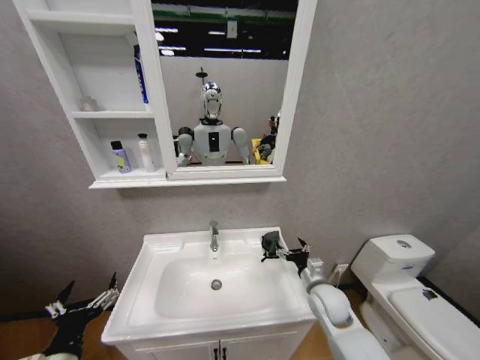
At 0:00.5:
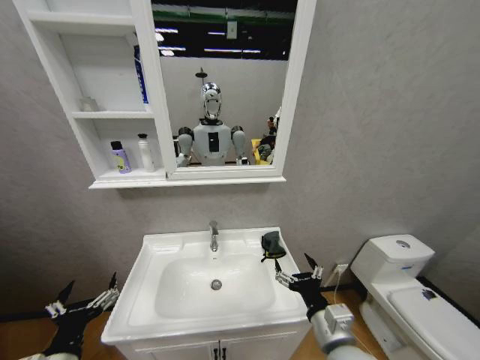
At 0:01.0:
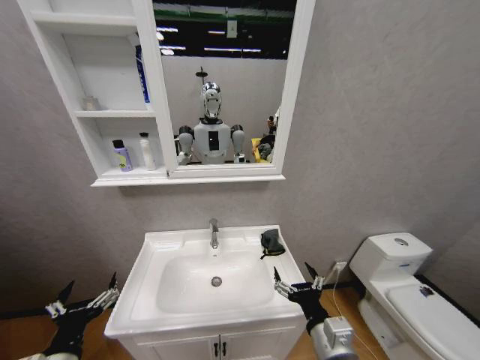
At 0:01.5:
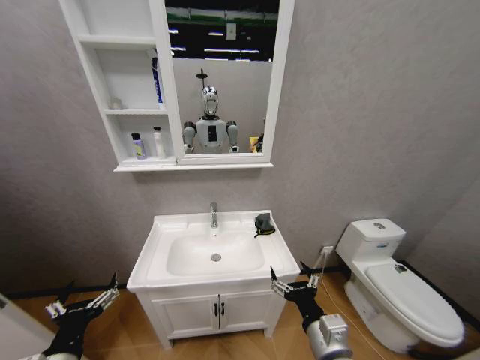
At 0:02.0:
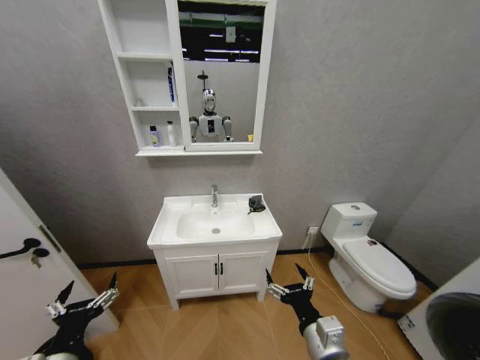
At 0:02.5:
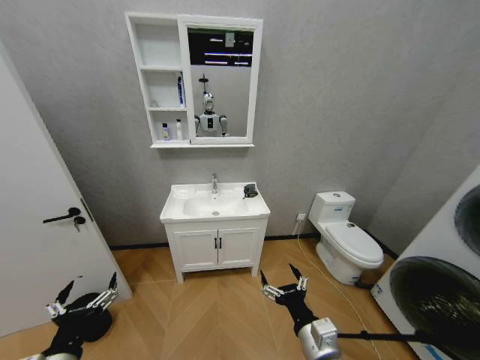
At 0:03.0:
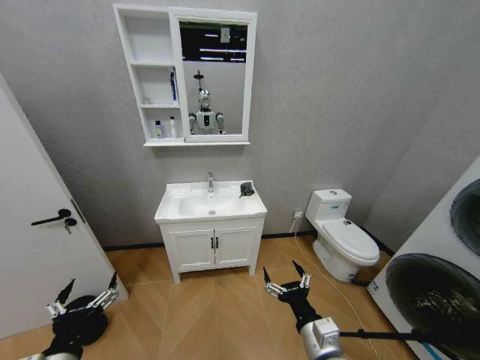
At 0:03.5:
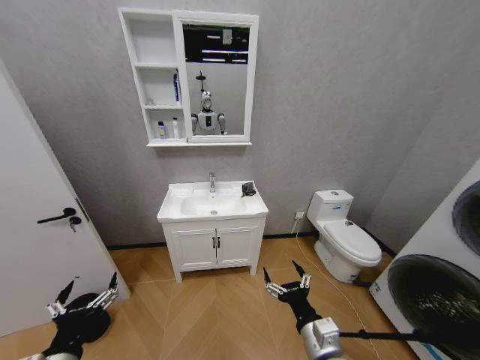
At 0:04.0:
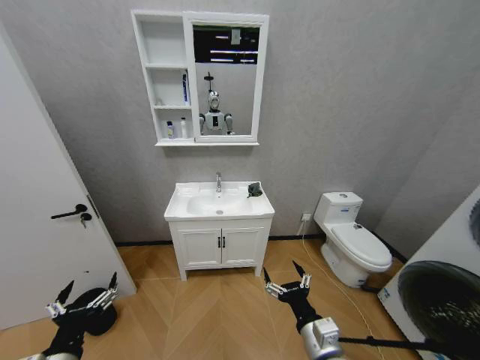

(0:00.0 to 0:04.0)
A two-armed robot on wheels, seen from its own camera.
Task of the whole recording: Move facial cleanser and shampoo from washbasin to cabinet, then wipe washbasin with towel.
0:00.0 - 0:02.0: The right gripper goes some 20 cm backward.

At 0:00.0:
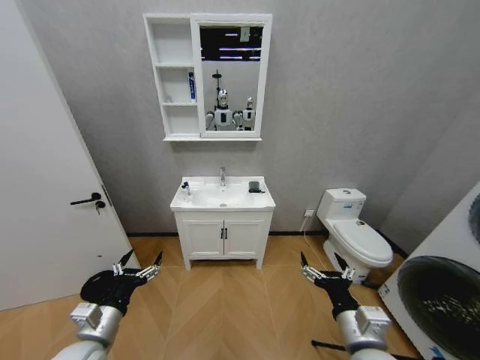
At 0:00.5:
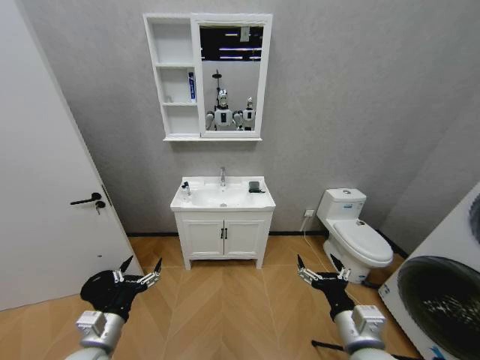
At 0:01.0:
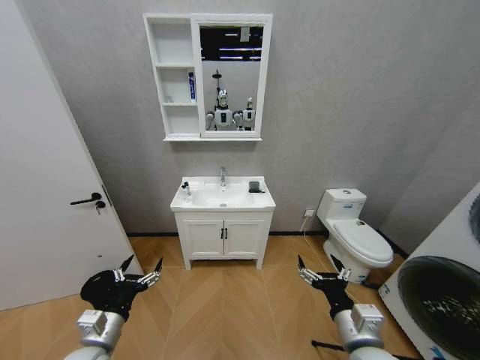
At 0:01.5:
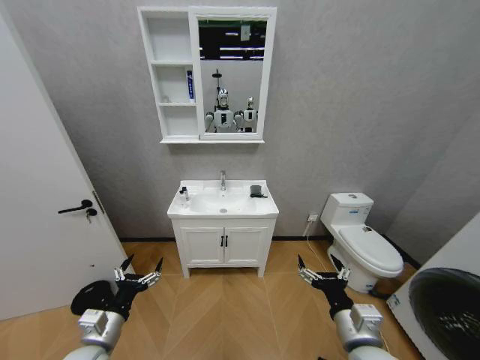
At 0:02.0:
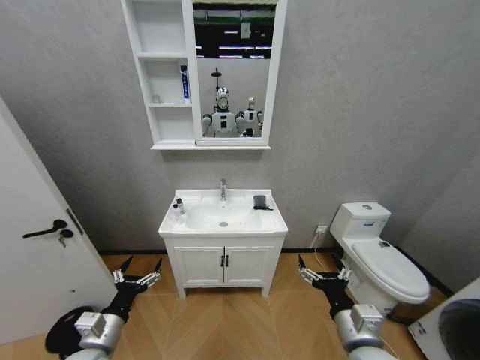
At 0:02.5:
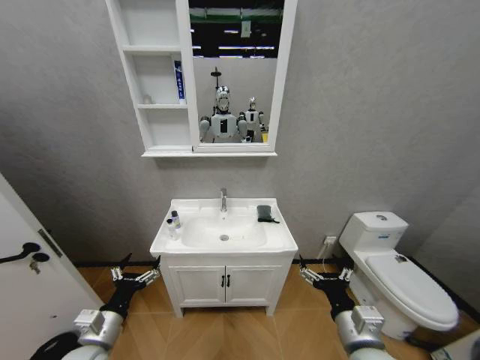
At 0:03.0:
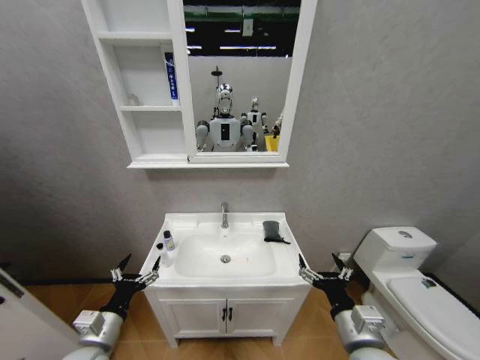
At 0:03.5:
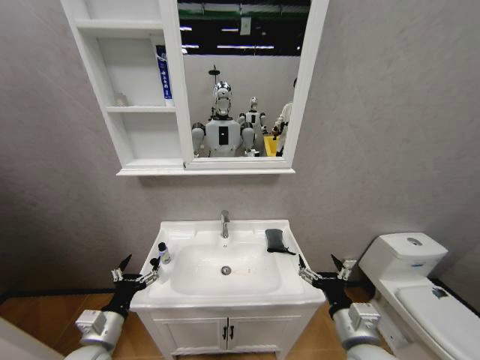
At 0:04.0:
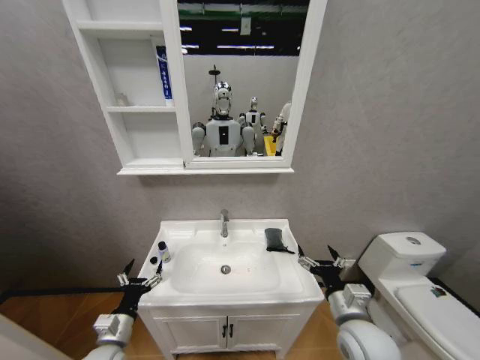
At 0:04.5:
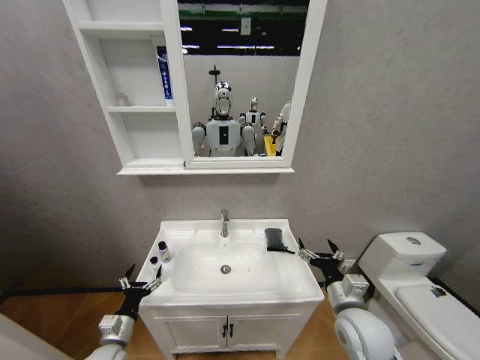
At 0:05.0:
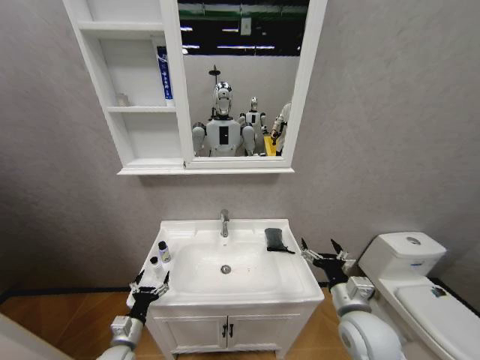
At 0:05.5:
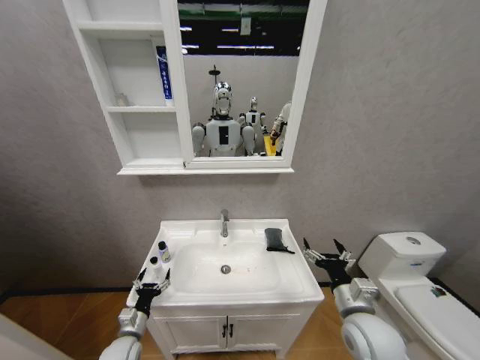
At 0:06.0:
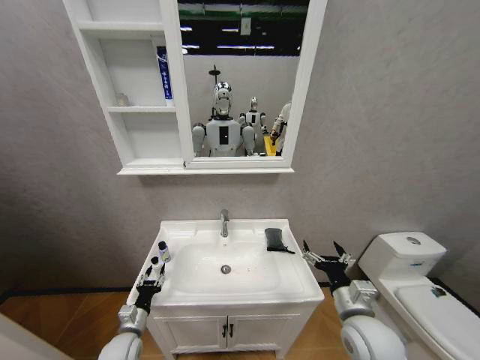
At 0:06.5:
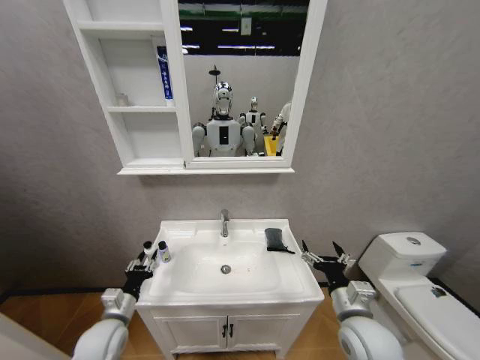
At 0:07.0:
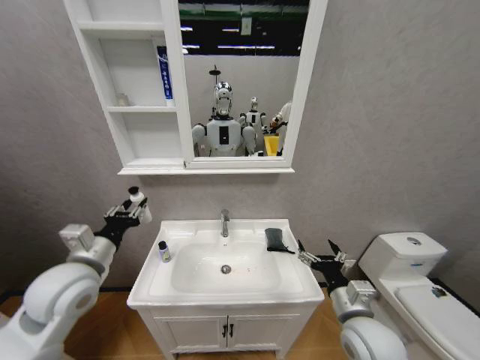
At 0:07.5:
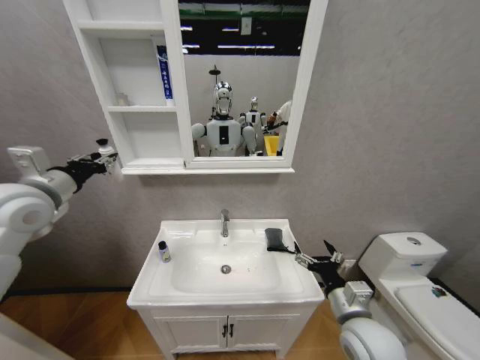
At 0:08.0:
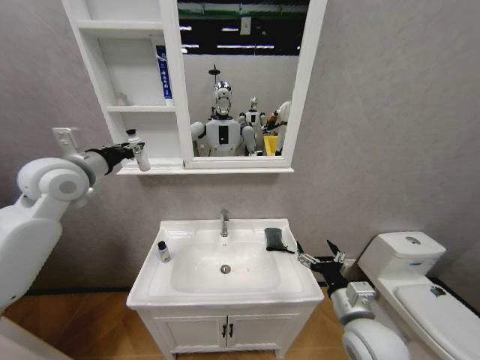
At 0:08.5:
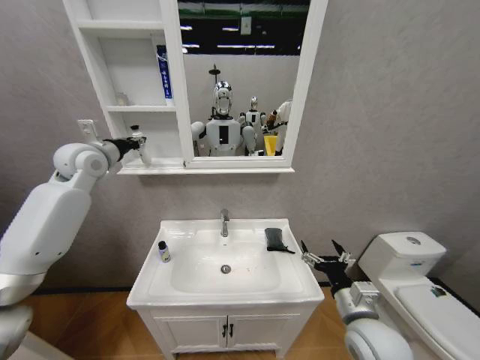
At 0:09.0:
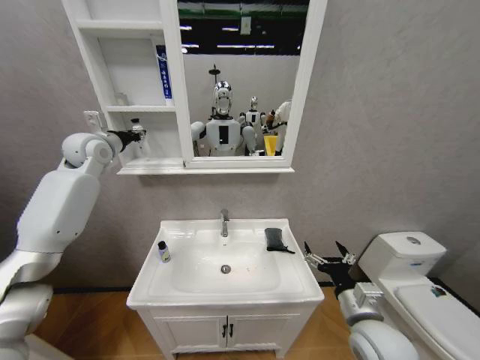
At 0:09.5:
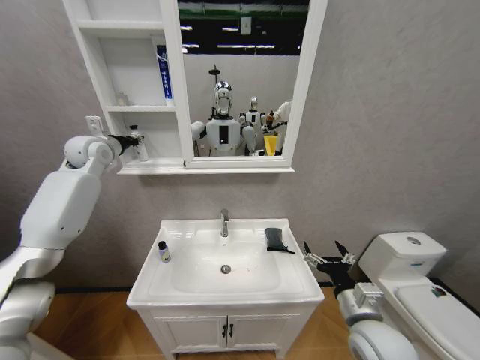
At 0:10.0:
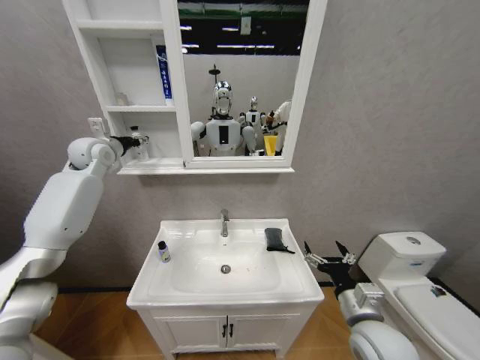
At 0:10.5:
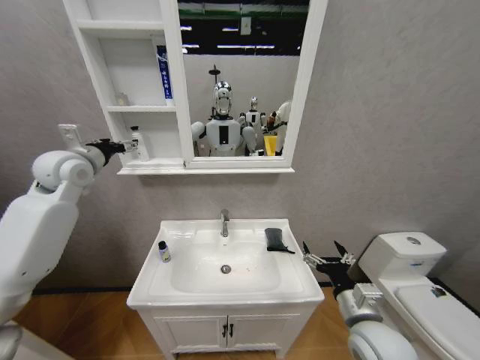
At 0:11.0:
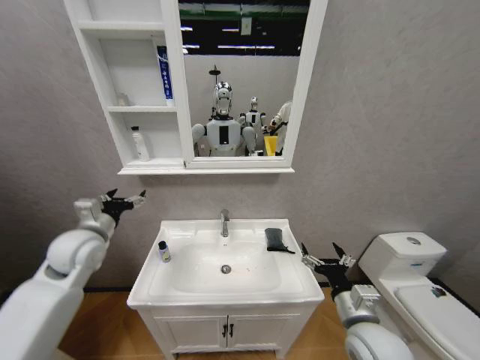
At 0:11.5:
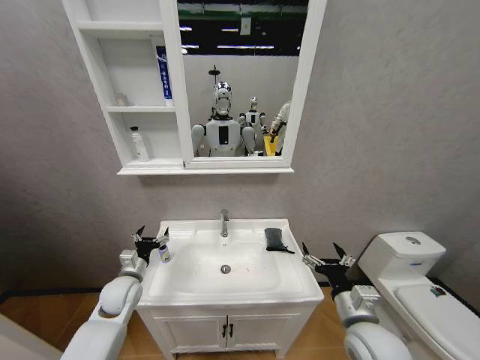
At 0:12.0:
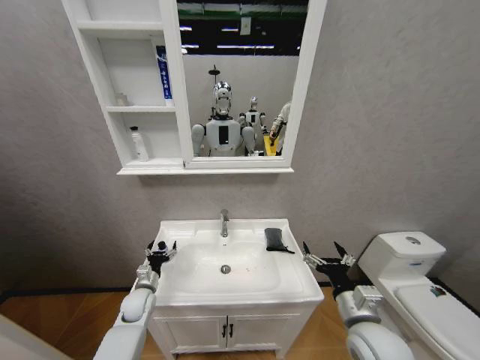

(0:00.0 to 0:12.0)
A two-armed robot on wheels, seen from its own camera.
Task of the whole recording: Move facial cleanser and shampoo from washbasin to cabinet, then wipe washbasin with towel.
0:02.0 - 0:04.0: The right gripper is displaced forward by roughly 5 cm, while the left gripper heads downward, covering approximately 5 cm.
0:04.0 - 0:06.0: The left gripper heads downward, covering approximately 5 cm, and closes up.
0:06.0 - 0:08.0: The left gripper heads upward, covering some 50 cm.
0:08.0 - 0:10.0: The left gripper moves forward, roughly 15 cm, and opens.
0:10.0 - 0:12.0: The left gripper shifts approximately 50 cm downward and backward, and opens up.

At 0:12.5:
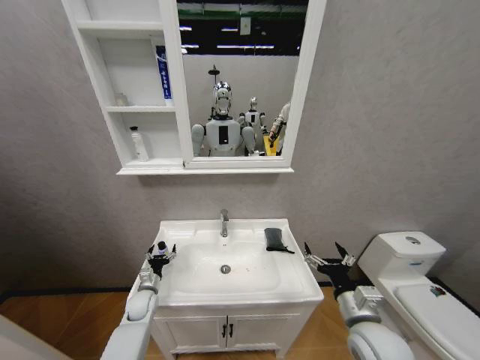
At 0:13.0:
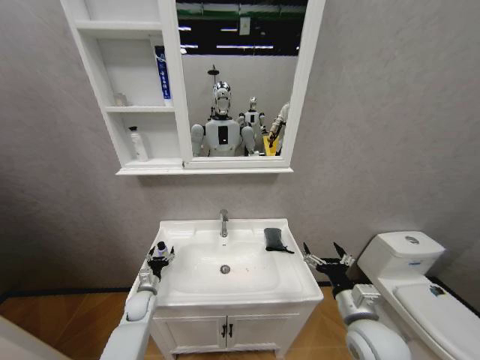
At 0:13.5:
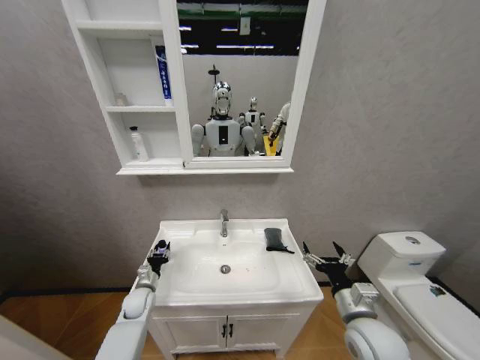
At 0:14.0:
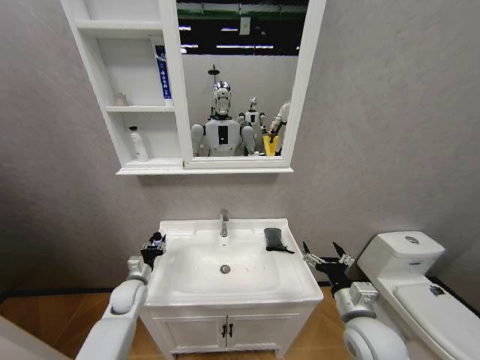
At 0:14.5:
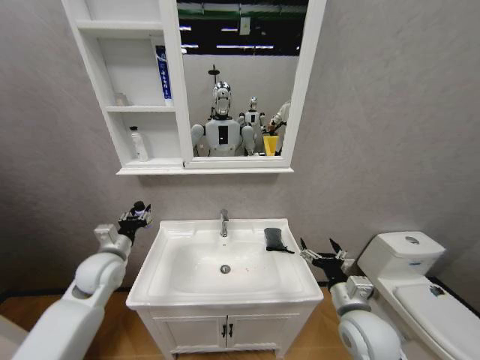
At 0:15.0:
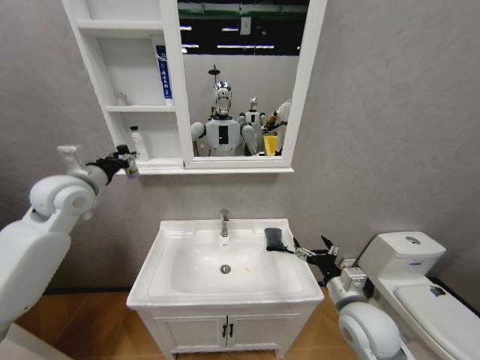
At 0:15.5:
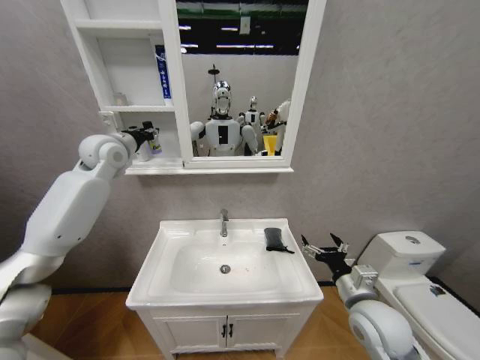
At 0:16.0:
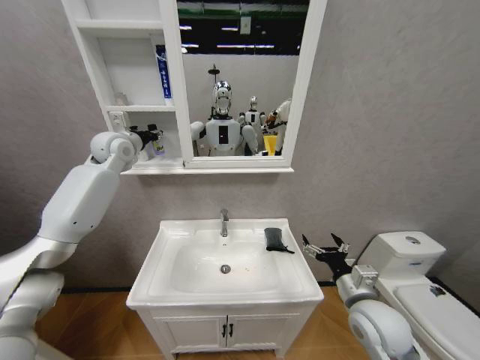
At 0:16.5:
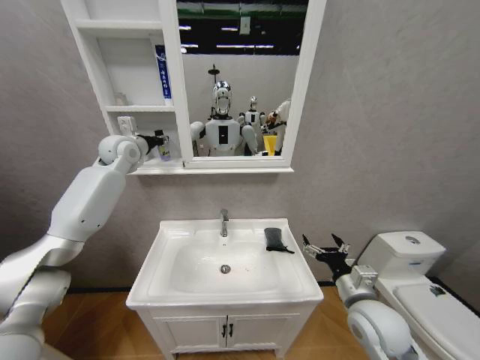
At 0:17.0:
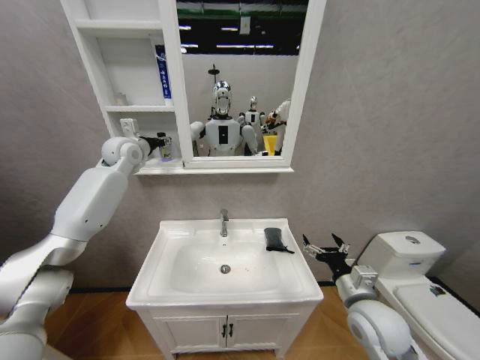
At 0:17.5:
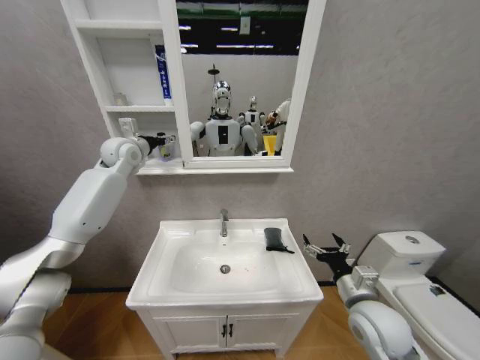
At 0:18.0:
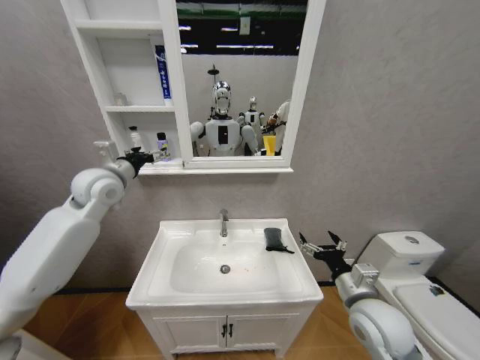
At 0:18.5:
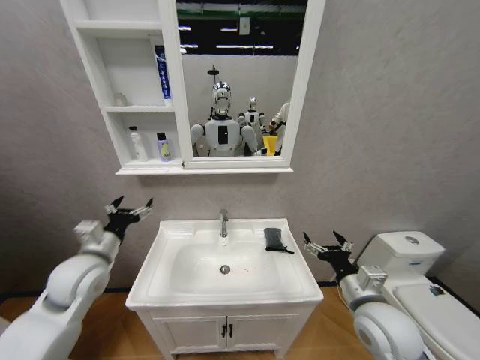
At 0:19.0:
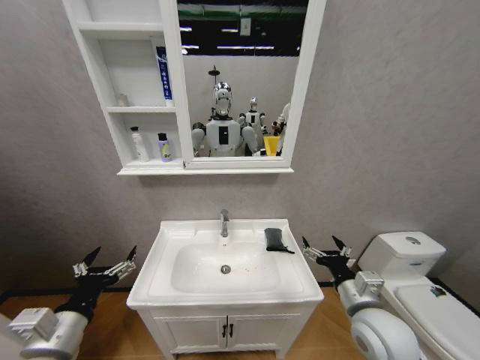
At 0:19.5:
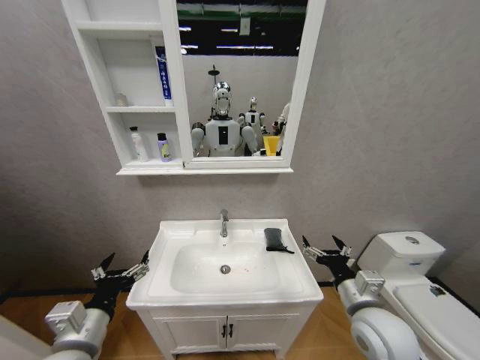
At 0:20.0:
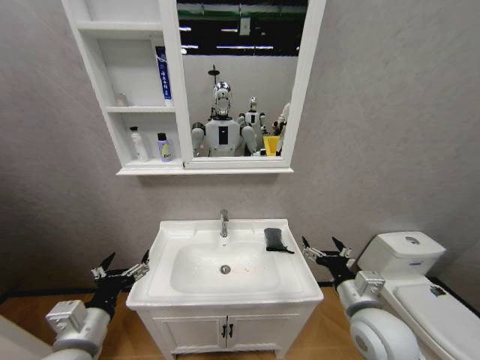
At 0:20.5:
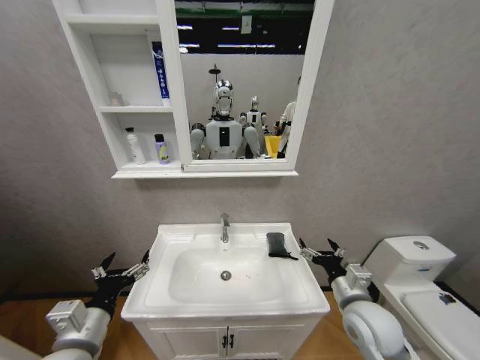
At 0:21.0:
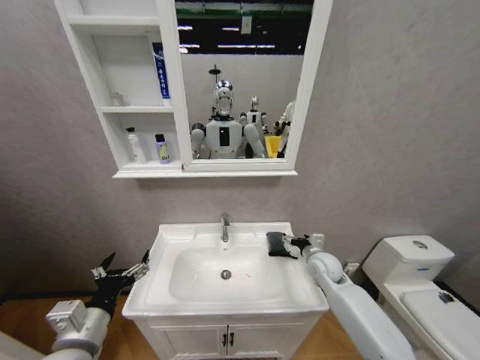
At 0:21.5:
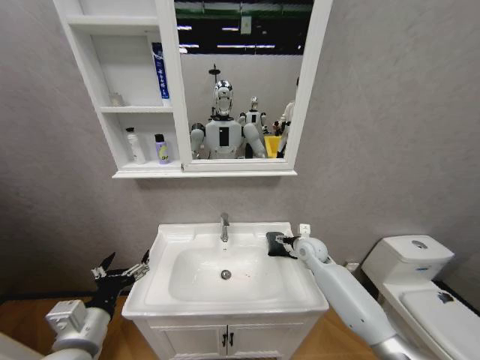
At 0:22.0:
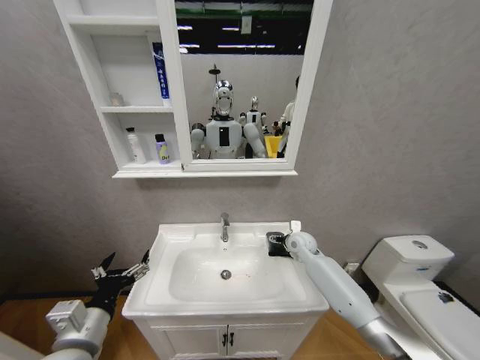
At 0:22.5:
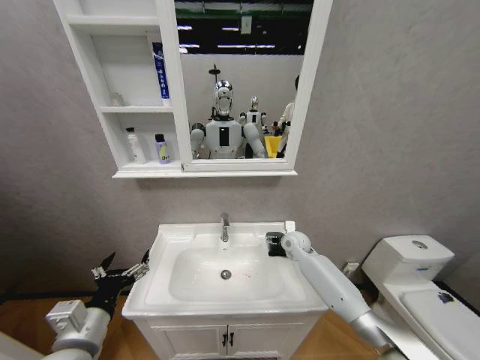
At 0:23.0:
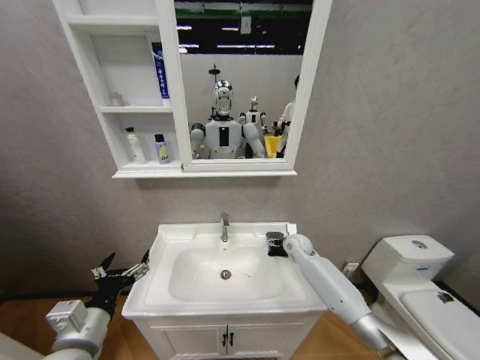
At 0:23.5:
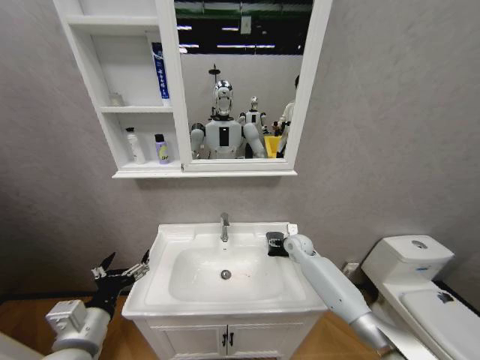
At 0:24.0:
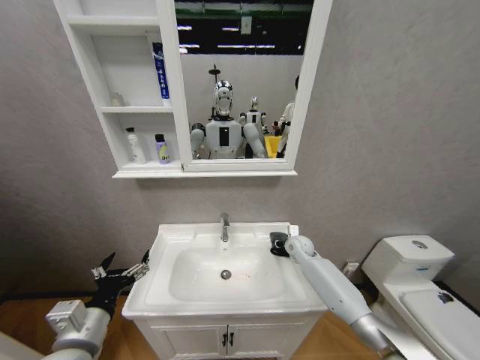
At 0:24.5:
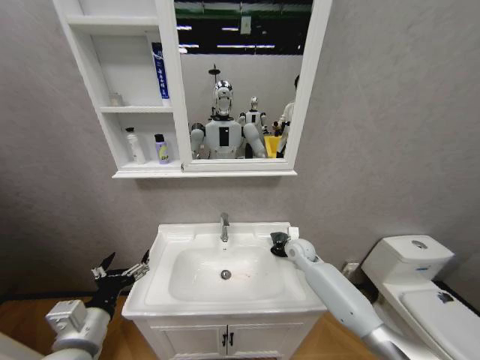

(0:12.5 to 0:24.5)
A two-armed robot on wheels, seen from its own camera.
Task of the whole recording: Move facial cleanser and shampoo from washbasin to cabinet, then wipe washbasin with towel.
0:12.5 - 0:14.5: The left gripper moves upward, approximately 25 cm, and closes up.
0:14.5 - 0:16.5: The left gripper travels upward and forward by about 35 cm.
0:16.5 - 0:18.5: The left gripper moves backward and downward, roughly 35 cm, and opens its fingers.
0:18.5 - 0:20.5: The left gripper moves backward, roughly 15 cm.
0:20.5 - 0:22.5: The right gripper heads forward, covering approximately 25 cm.
0:22.5 - 0:24.5: The right gripper closes up.
